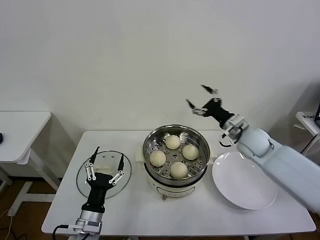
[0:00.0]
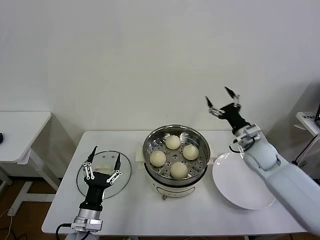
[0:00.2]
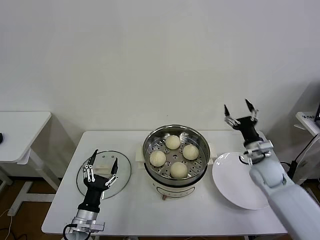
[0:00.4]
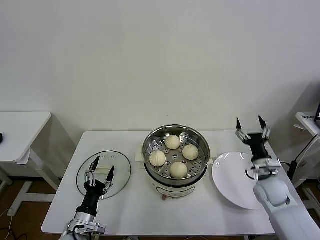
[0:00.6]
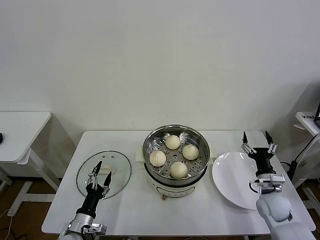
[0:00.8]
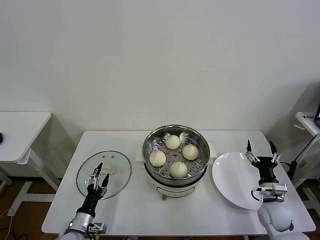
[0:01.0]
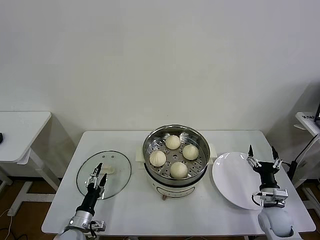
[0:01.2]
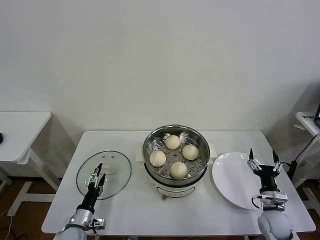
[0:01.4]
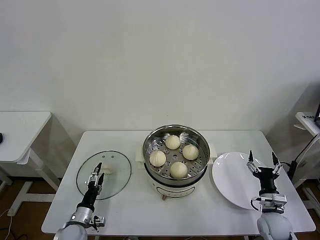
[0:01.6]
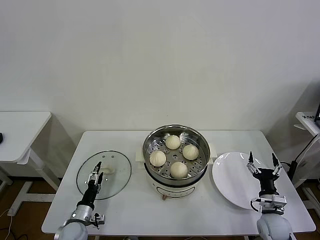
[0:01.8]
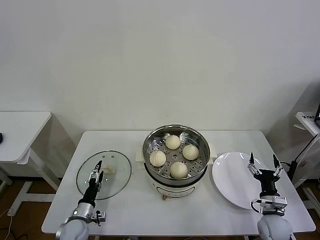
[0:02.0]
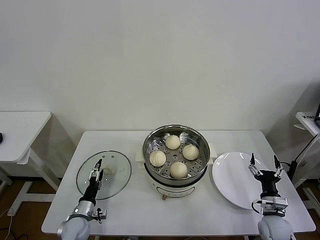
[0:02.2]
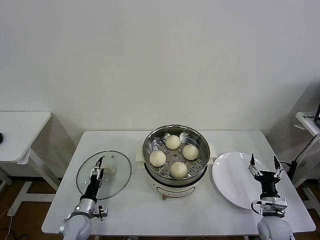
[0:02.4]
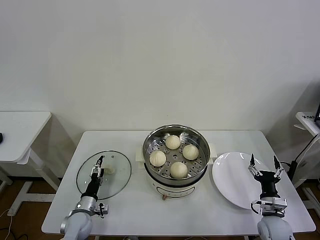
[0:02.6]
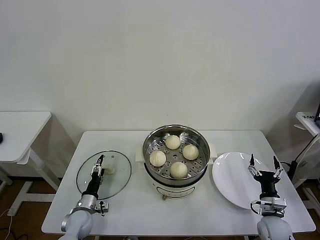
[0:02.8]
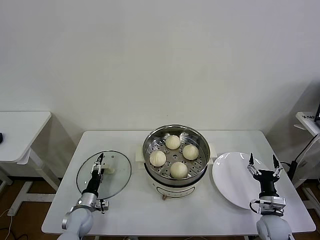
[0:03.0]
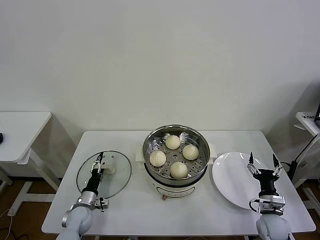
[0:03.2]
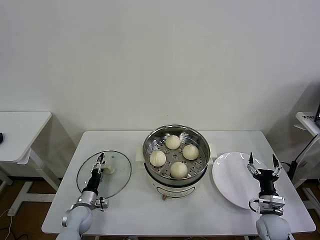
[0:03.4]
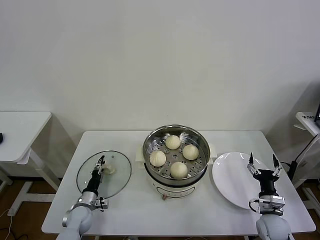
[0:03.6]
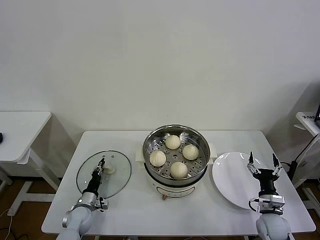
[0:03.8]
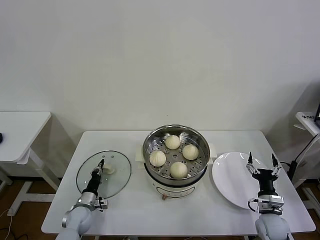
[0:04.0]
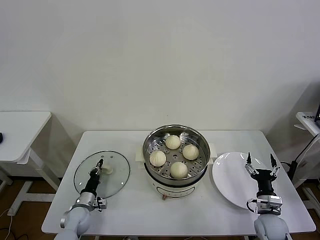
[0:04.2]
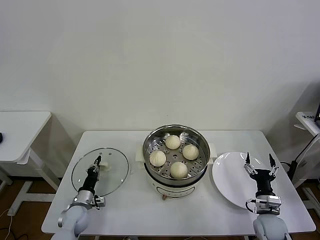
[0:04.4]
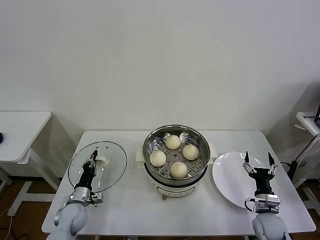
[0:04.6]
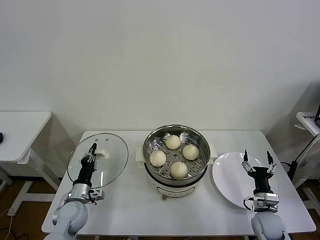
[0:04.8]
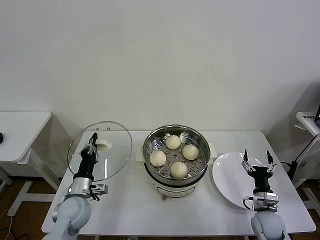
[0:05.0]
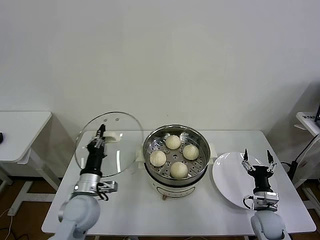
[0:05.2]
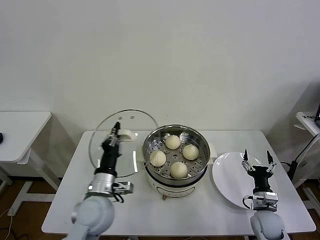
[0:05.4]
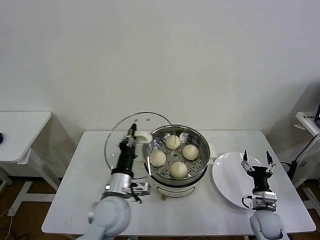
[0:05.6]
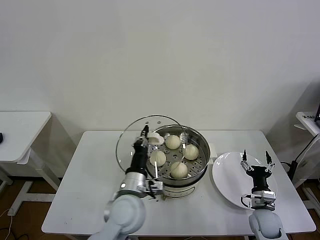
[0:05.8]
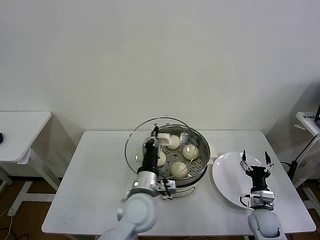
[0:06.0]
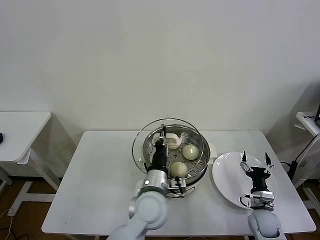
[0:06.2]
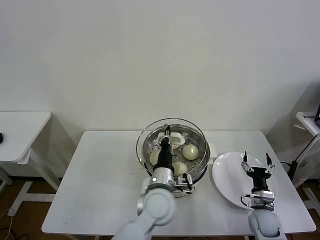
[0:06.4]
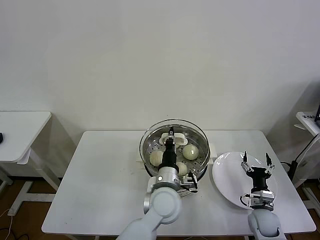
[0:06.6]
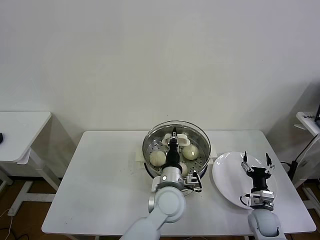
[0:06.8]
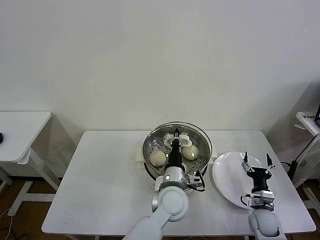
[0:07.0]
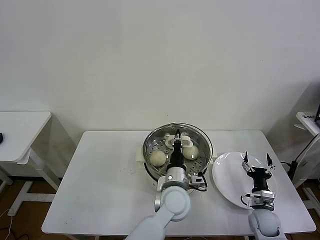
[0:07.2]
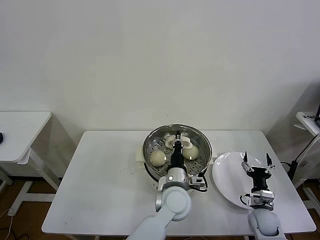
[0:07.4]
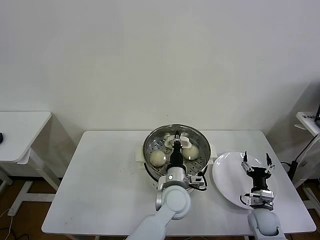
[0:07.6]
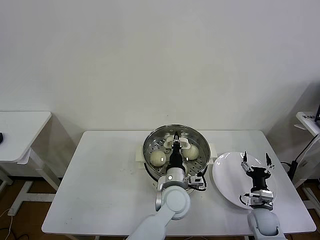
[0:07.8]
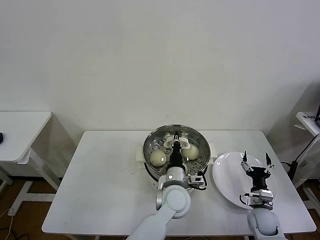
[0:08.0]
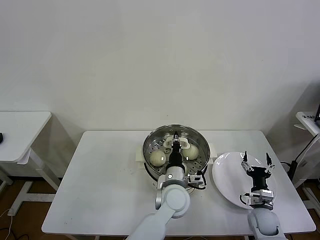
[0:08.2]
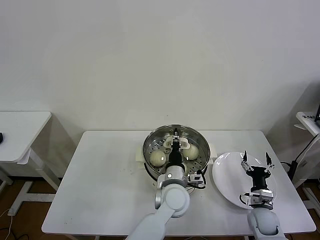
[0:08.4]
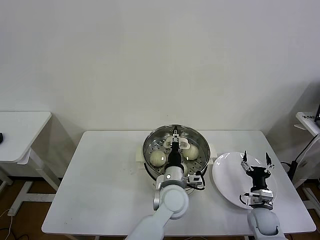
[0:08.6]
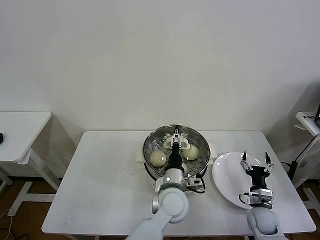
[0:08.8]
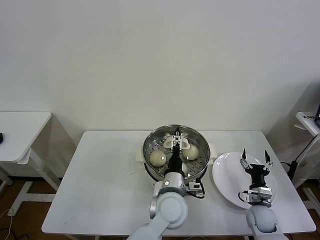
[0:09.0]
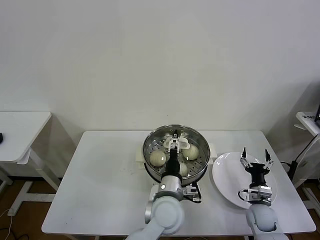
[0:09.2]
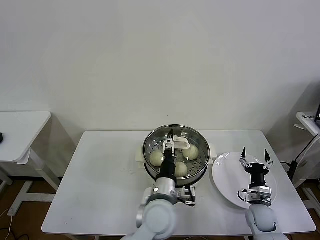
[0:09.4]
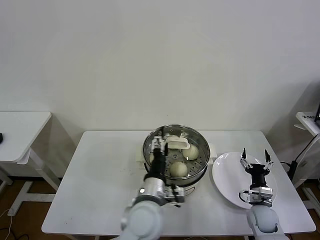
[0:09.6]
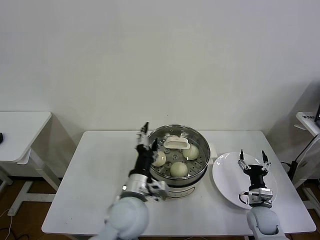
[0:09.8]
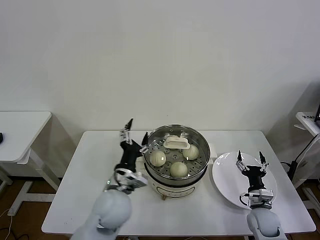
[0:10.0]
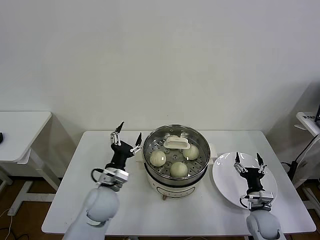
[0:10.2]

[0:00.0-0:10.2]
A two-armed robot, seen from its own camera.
Task of the whole recording: take steamed baozi put them in steamer then cover it.
Step, 0:00.0 to 0:03.8: Grasp the pot lid with left gripper.
Step, 0:04.2 to 0:08.4: Place the pot lid on the steamer with left gripper.
0:00.0 to 0:01.4: The left gripper travels downward and to the left by some 15 cm; the right gripper is displaced downward, backward and to the right by some 30 cm.
0:01.4 to 0:03.0: The left gripper goes approximately 5 cm forward.
0:03.0 to 0:04.4: The left gripper closes.
0:04.4 to 0:05.8: The left gripper is displaced to the right and upward by some 30 cm.
0:05.8 to 0:07.2: The left gripper moves to the right, about 15 cm.
0:07.2 to 0:08.8: The left gripper opens up.
0:08.8 to 0:10.2: The left gripper goes some 20 cm to the left.

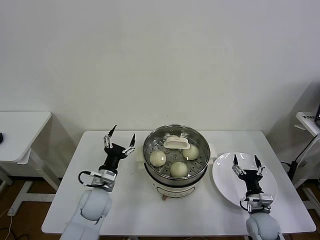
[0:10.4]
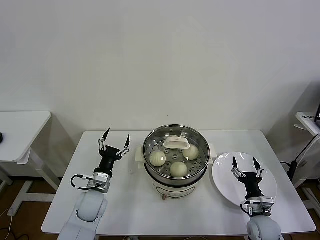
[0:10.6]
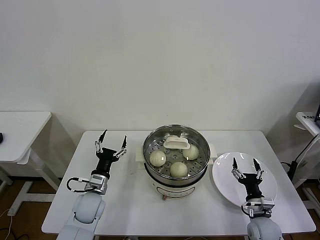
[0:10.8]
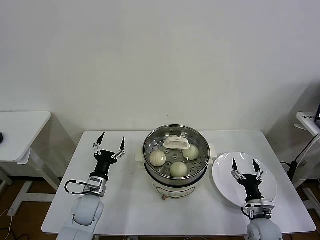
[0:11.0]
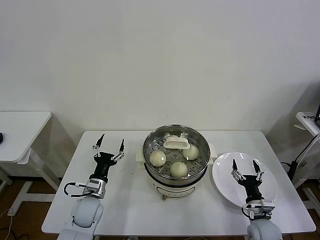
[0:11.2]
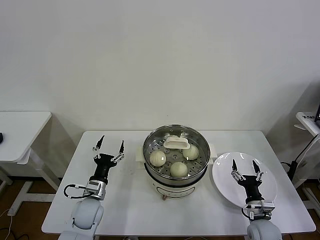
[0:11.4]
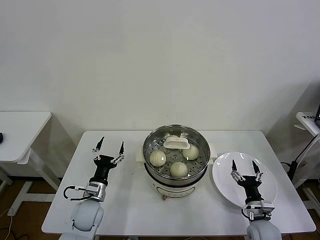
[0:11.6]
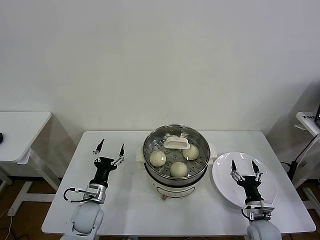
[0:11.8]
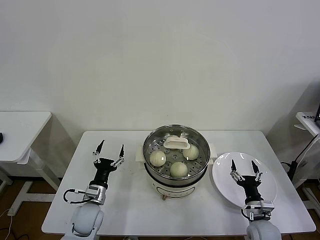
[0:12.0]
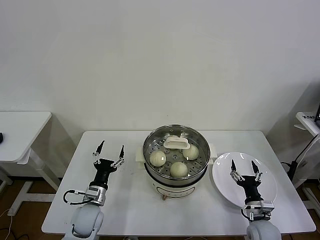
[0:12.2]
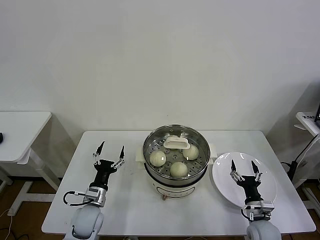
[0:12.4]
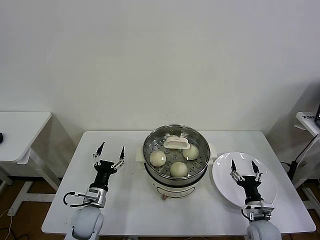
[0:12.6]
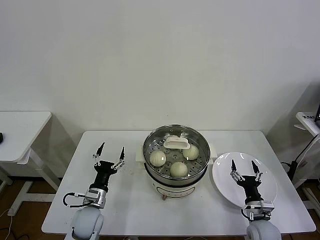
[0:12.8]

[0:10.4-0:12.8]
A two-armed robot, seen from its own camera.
Task of the whole recording: take steamed baozi put them in steamer then cover it.
0:10.4 to 0:11.6: The left gripper is displaced downward by approximately 5 cm.
0:11.6 to 0:12.8: The grippers make only small movements.

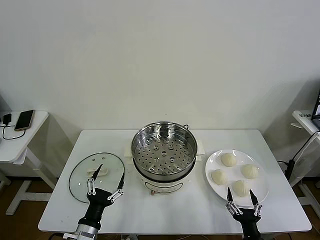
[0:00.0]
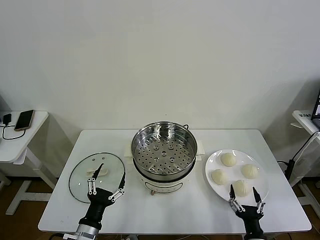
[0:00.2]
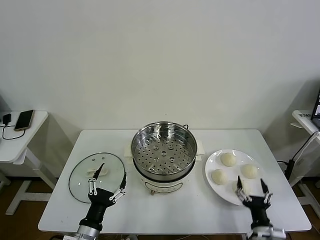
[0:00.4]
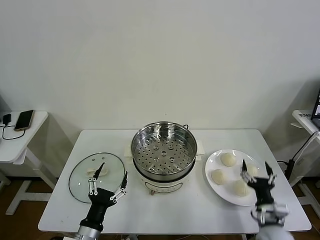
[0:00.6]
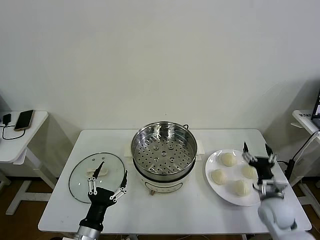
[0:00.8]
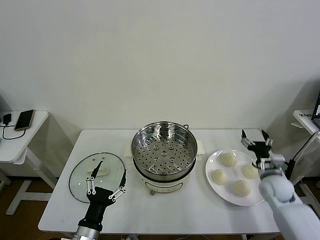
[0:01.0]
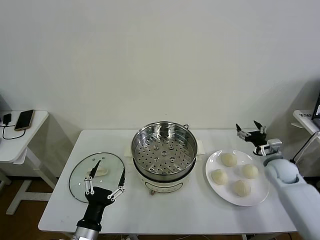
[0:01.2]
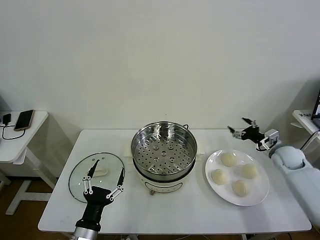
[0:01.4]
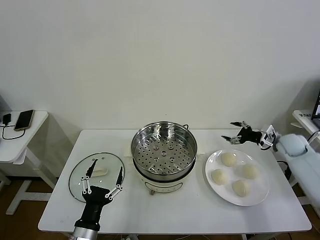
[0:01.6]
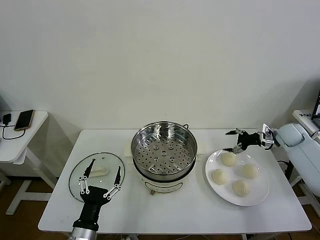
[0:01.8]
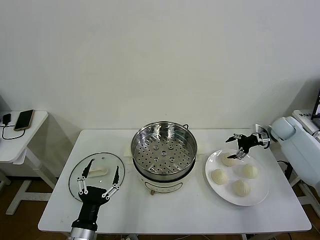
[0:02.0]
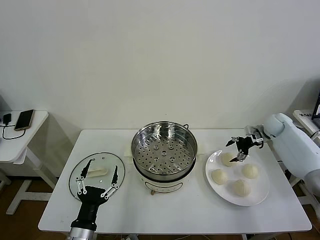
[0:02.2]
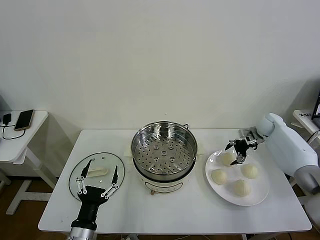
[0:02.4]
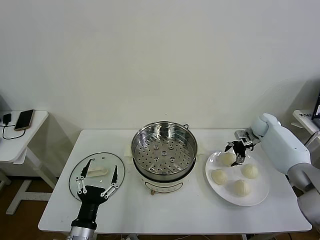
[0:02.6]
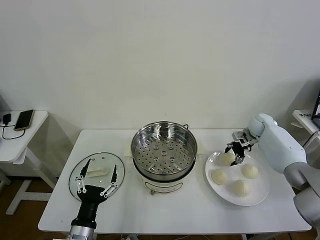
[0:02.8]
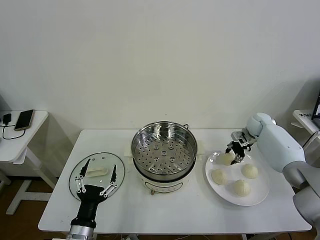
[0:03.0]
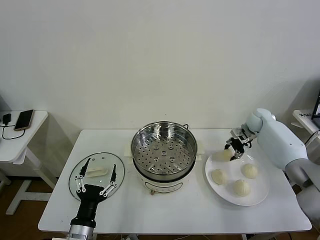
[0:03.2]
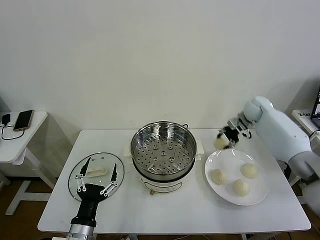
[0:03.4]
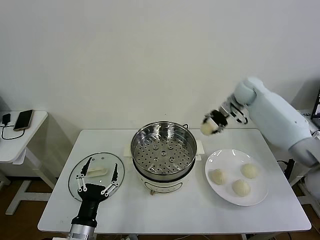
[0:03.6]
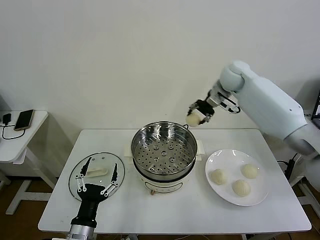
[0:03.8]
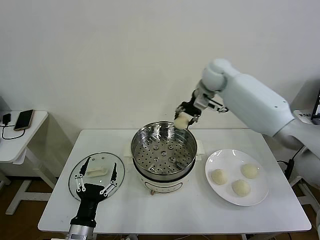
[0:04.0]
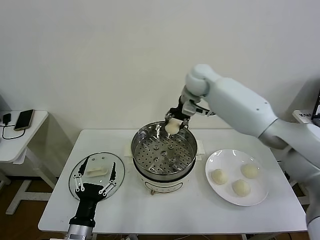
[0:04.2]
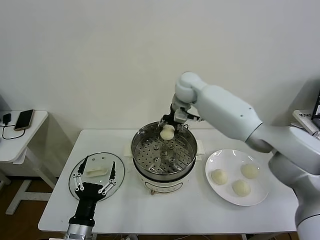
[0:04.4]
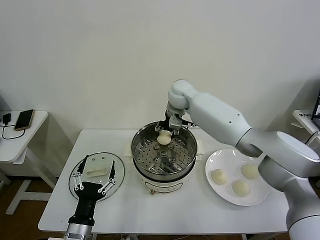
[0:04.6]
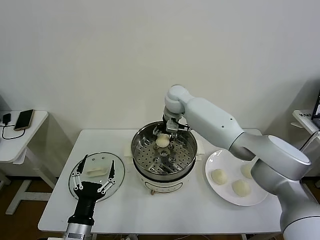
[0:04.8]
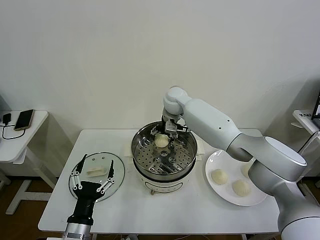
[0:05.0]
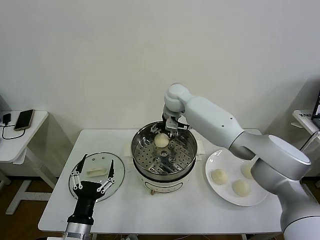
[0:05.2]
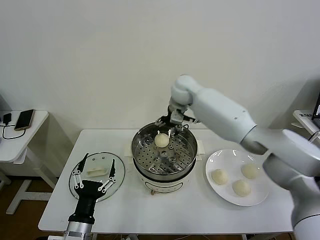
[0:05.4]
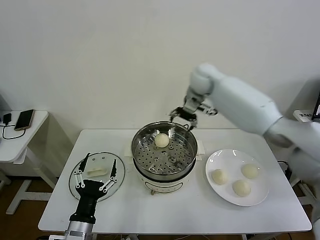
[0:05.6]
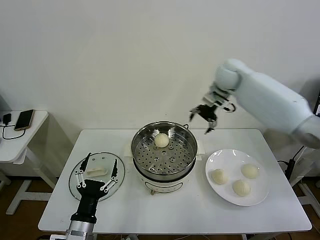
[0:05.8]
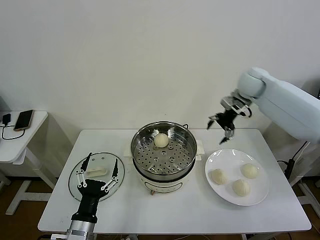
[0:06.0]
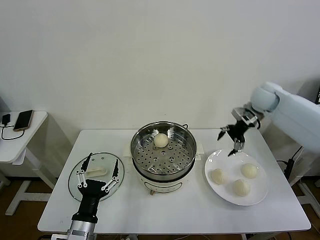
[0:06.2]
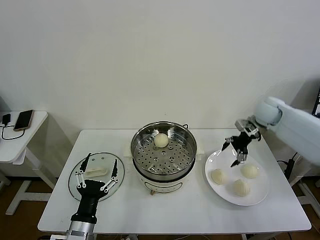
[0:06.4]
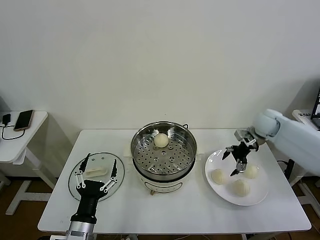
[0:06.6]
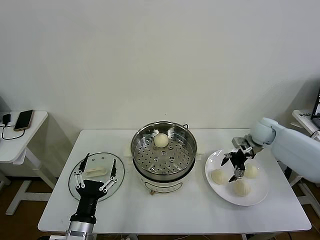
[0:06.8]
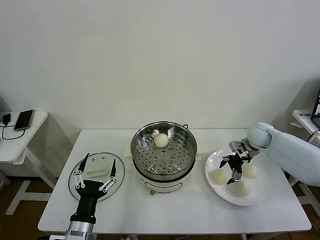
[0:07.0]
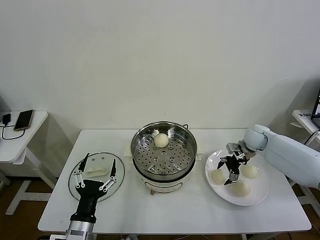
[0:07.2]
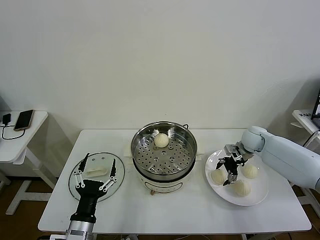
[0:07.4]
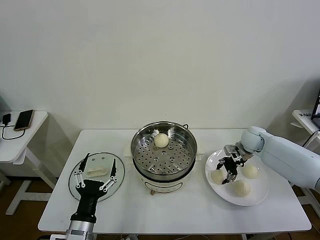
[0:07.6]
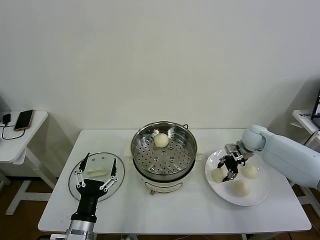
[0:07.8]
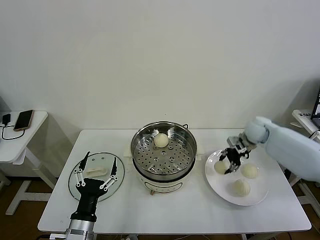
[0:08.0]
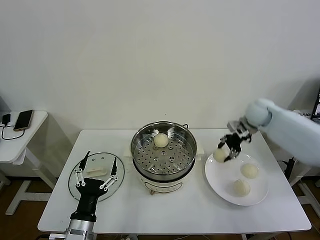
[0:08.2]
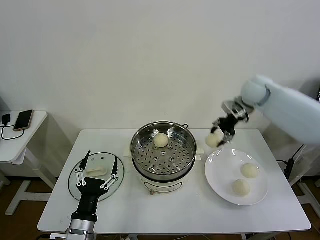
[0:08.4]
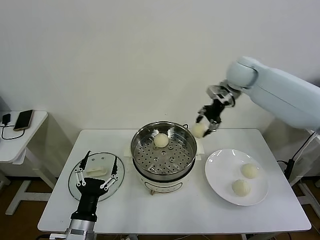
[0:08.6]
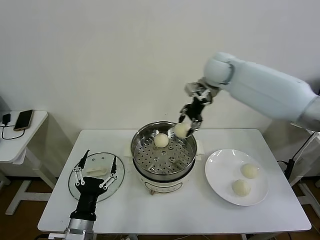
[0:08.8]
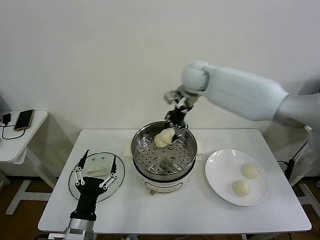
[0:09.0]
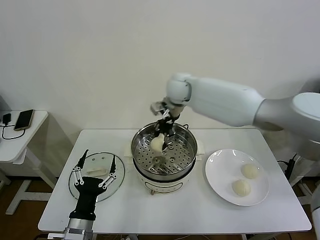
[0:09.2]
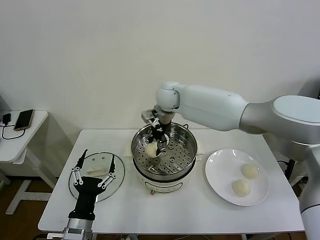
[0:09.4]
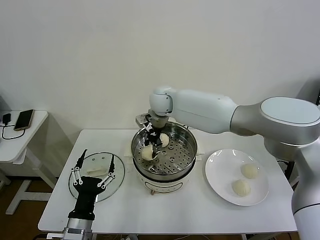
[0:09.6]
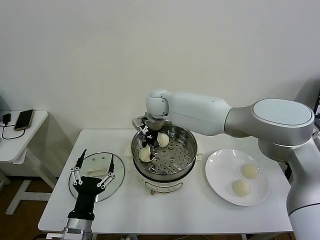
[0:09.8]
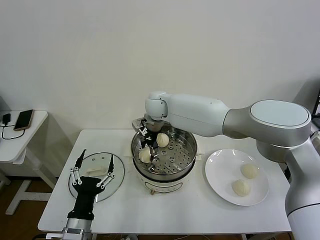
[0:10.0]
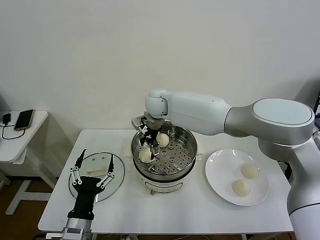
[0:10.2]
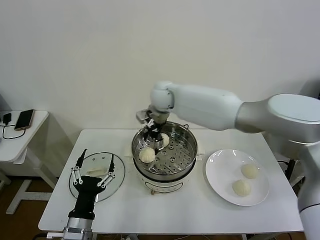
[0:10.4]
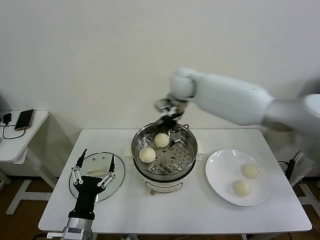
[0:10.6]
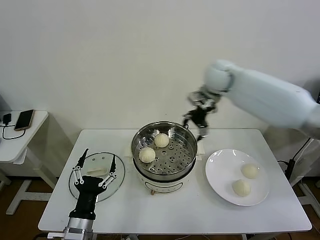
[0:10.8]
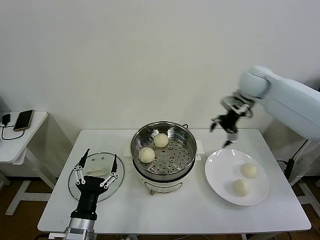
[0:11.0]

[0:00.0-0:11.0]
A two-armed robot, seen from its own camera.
Task of the whole recording: take steamed baozi put them in steamer then cover it.
Step, 0:00.0 to 0:02.8: Grasp the baozi in the plate with right gripper.
Step, 0:03.2 to 0:05.4: Place the baozi on the steamer with right gripper.
Step, 0:05.6 to 0:07.6: Grasp the baozi in the plate with right gripper.
Step, 0:07.8 to 0:10.2: Place the baozi on the steamer with right gripper.
0:01.6 to 0:03.2: The right gripper shifts about 15 cm forward and to the left, and closes up.
0:03.2 to 0:04.8: The right gripper travels to the left by roughly 35 cm, and opens its fingers.
0:04.8 to 0:06.2: The right gripper moves to the right, approximately 30 cm, and opens.
0:06.2 to 0:07.8: The right gripper travels downward by about 15 cm, and closes up.
0:07.8 to 0:09.4: The right gripper moves to the left and upward, some 40 cm.
0:09.4 to 0:11.0: The right gripper shifts some 30 cm to the right, and opens its fingers.
